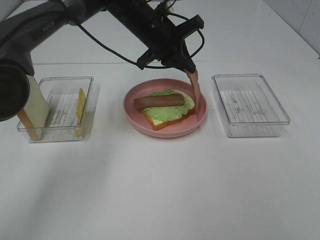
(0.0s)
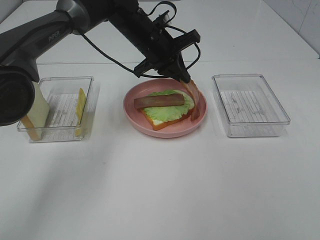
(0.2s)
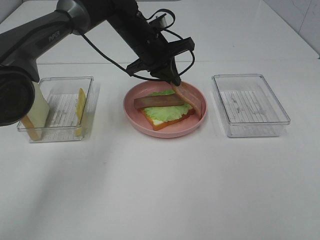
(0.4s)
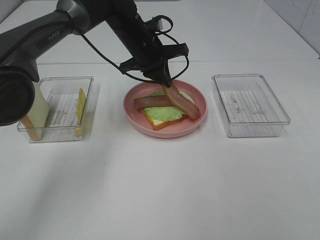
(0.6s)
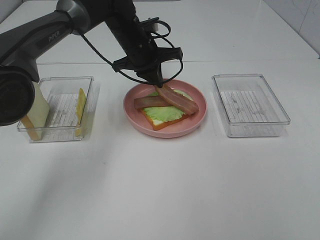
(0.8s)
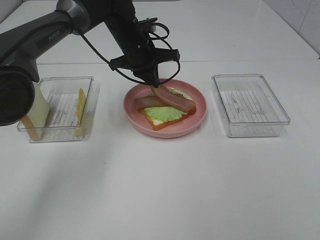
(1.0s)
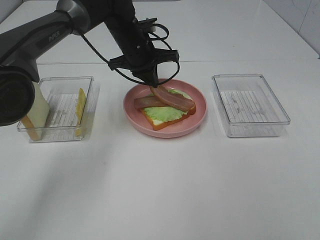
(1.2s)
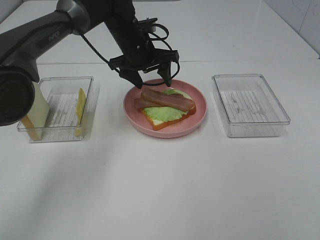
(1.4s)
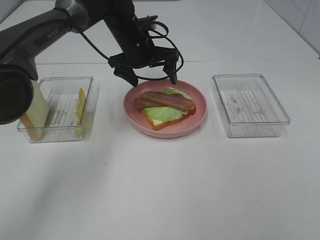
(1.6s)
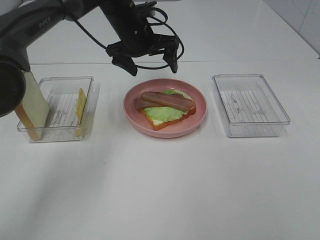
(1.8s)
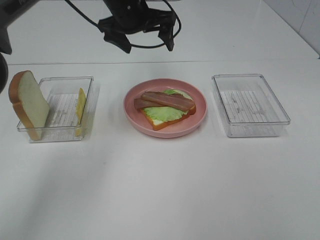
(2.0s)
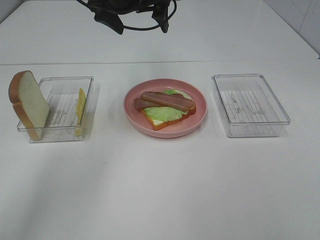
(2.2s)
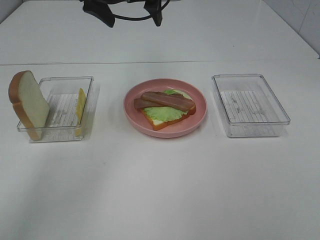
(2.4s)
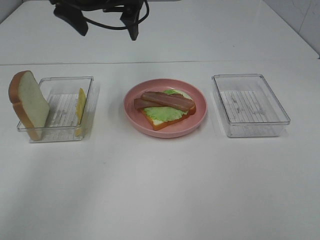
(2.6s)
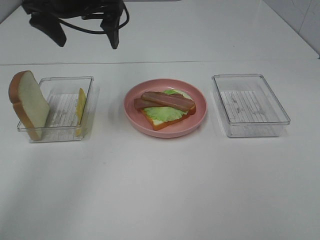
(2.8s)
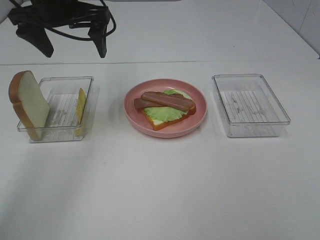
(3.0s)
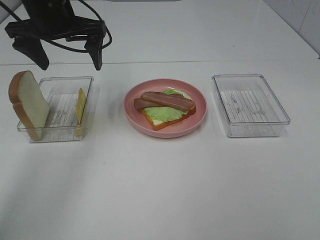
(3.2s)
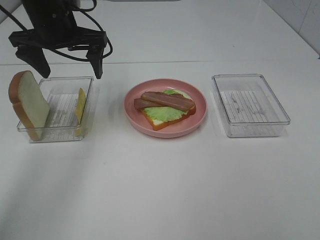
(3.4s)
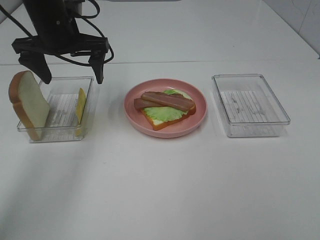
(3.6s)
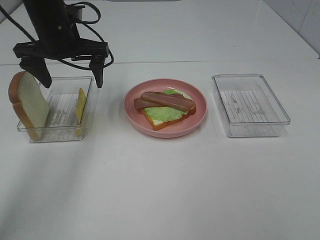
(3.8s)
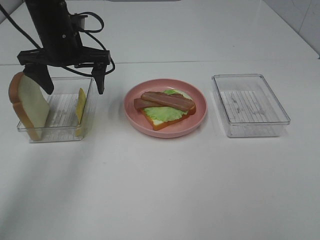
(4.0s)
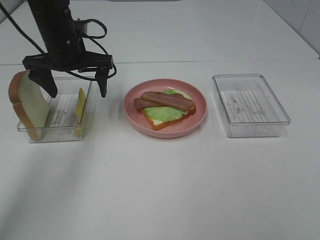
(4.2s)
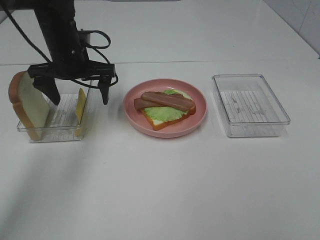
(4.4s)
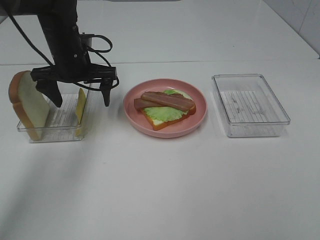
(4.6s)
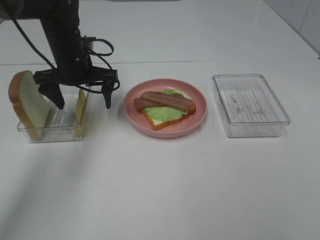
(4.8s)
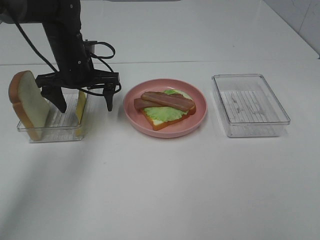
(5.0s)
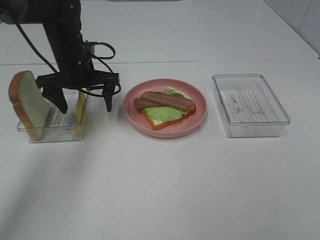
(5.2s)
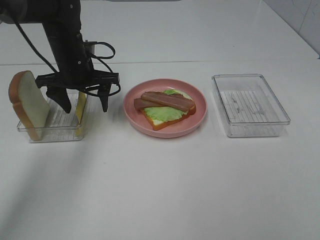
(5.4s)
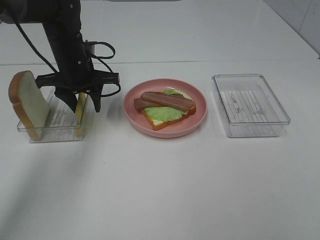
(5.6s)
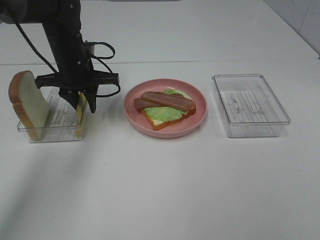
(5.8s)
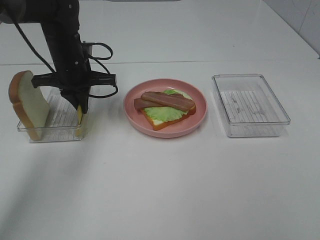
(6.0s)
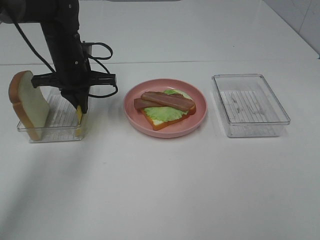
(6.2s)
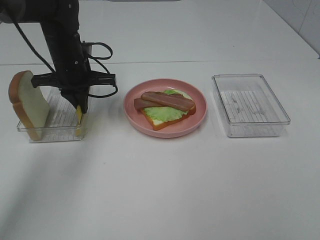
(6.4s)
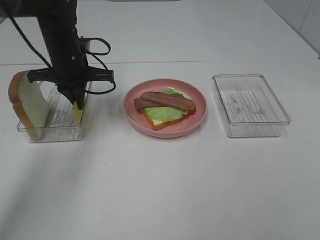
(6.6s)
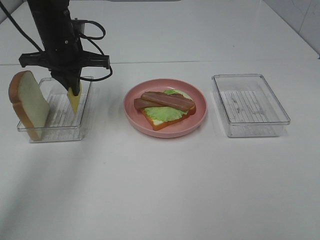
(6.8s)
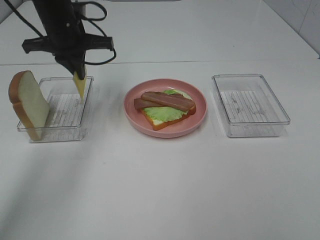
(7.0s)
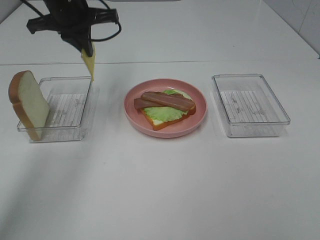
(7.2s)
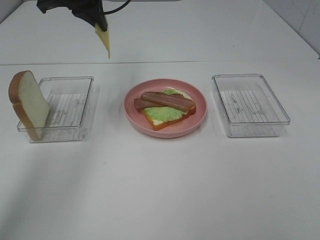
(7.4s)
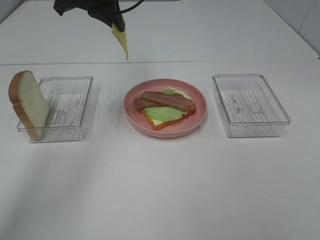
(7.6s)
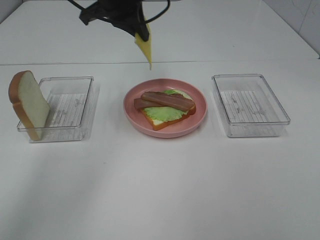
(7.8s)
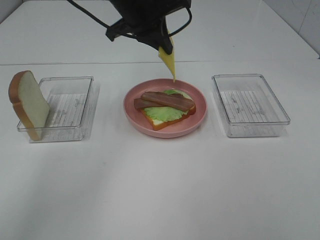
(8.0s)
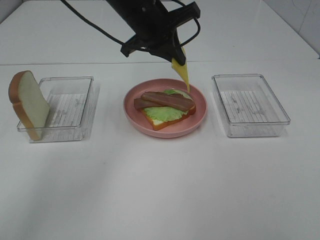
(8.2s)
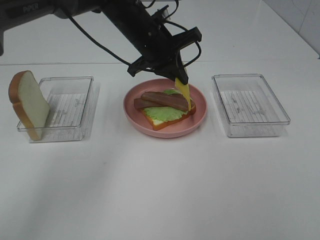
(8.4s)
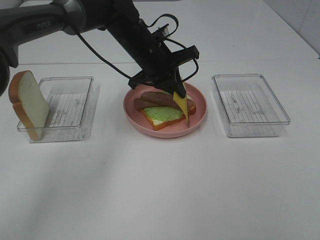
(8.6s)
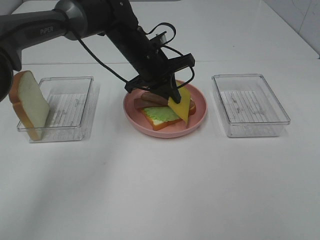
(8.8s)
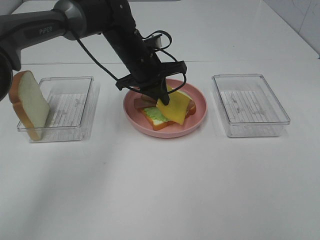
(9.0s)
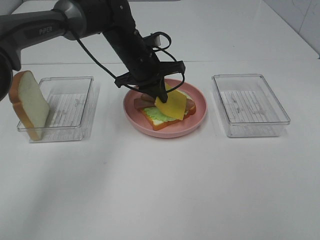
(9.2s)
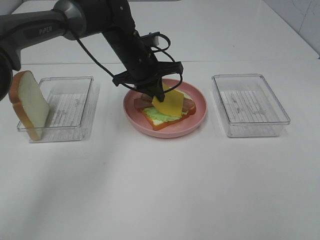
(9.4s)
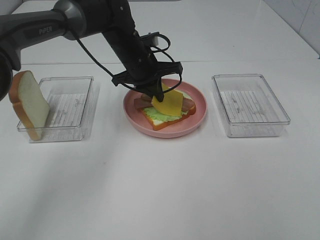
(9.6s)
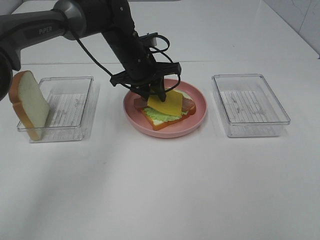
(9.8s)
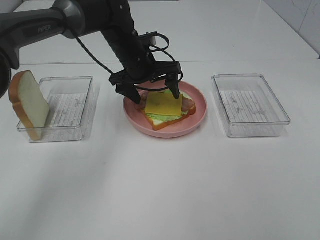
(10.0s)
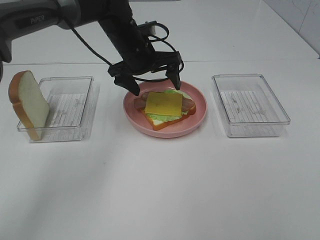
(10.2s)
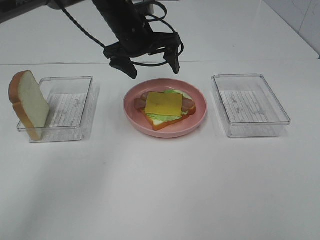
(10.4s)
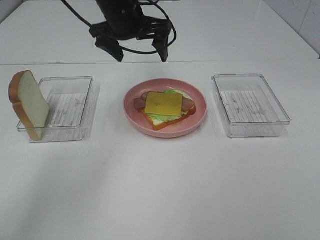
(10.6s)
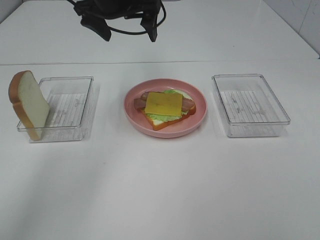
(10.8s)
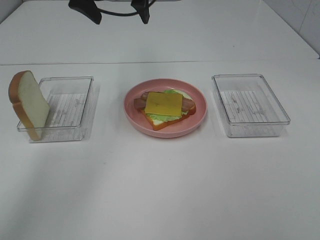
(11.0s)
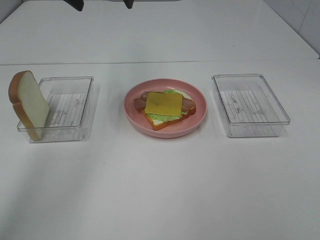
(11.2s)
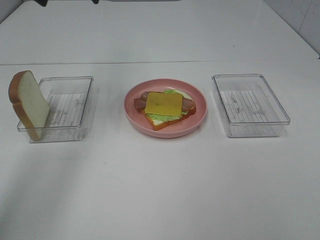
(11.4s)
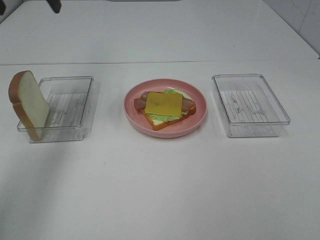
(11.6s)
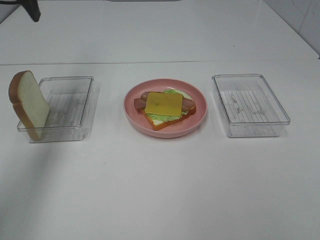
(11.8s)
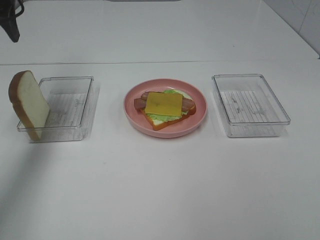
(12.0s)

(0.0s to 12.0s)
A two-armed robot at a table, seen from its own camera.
Task of the whole recording: Make sandwiches.
Step, 2.0s - 6.6s: Left hand:grab the cheese slice.
Step, 6.8s - 10.2s: Left hand:place the cheese slice on top of the bacon.
0.0s - 1.6s: The left gripper opens.
1.6s - 3.0s: The left gripper travels upward, to the left and backward by about 20 cm.
3.0s - 4.4s: The left gripper goes some 10 cm downward.
4.4s - 6.0s: The left gripper closes.
6.0s - 7.6s: The left gripper is displaced upward by roughly 15 cm.
7.6s - 9.0s: The left gripper is displaced downward and to the right by approximately 20 cm.
9.0s - 10.4s: The left gripper travels upward by roughly 5 cm, and opens.
10.4s - 12.0s: The left gripper shifts approximately 25 cm to the left.

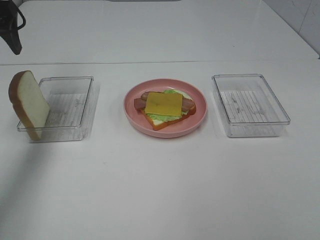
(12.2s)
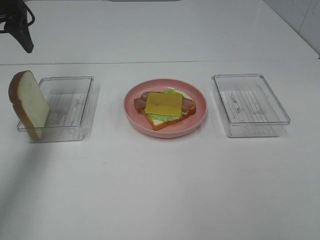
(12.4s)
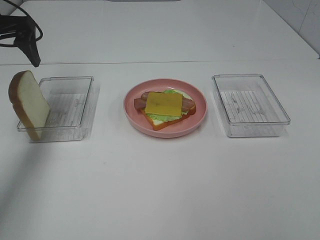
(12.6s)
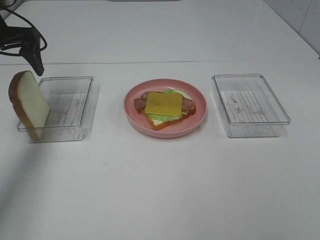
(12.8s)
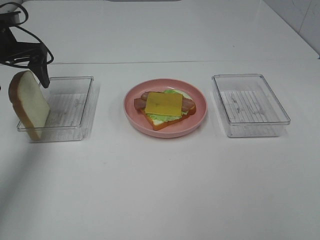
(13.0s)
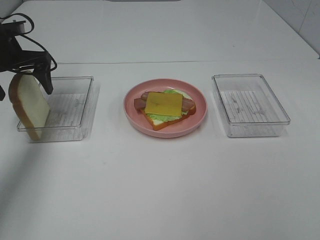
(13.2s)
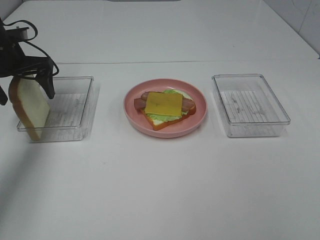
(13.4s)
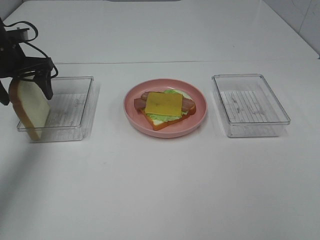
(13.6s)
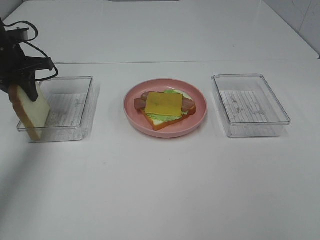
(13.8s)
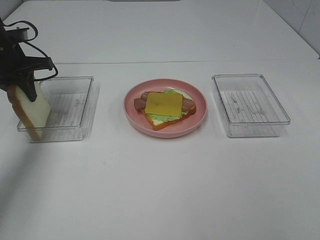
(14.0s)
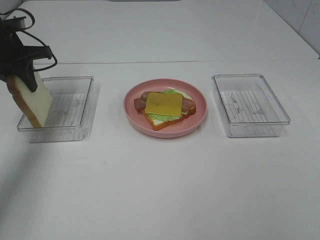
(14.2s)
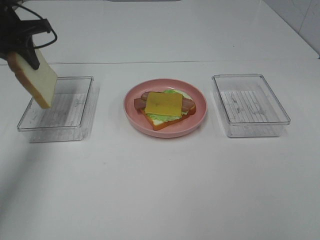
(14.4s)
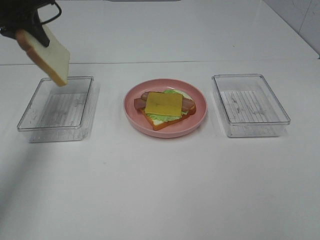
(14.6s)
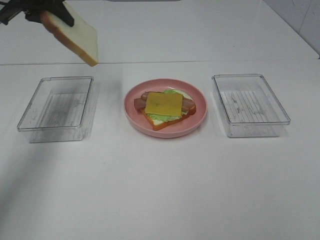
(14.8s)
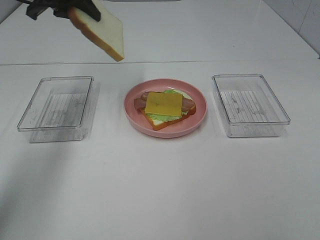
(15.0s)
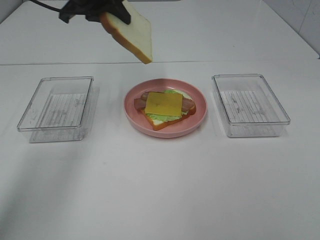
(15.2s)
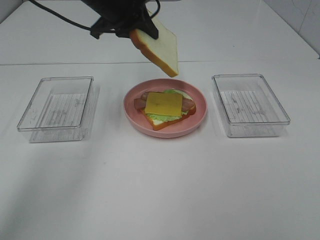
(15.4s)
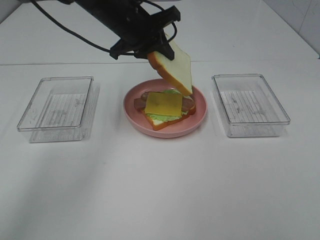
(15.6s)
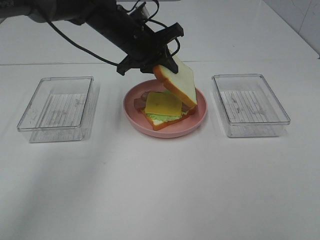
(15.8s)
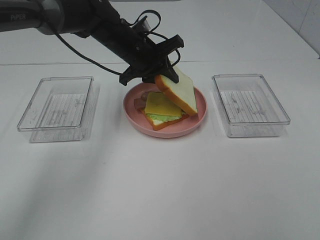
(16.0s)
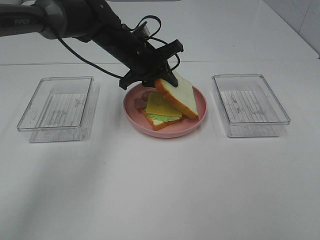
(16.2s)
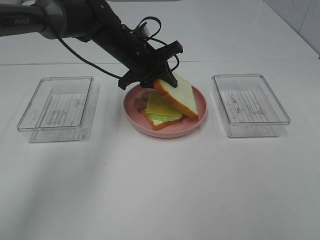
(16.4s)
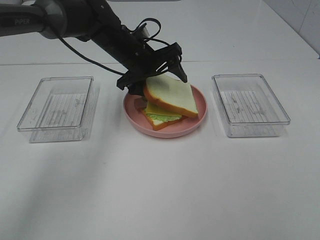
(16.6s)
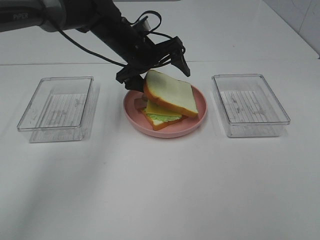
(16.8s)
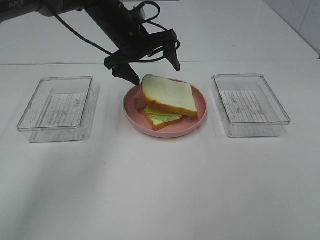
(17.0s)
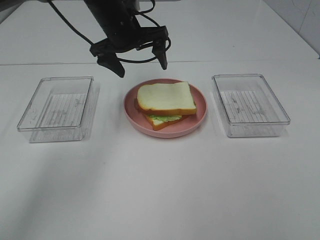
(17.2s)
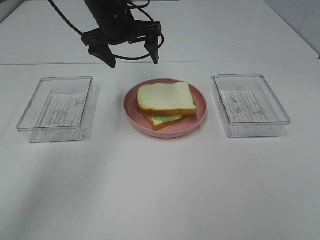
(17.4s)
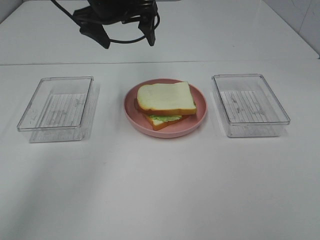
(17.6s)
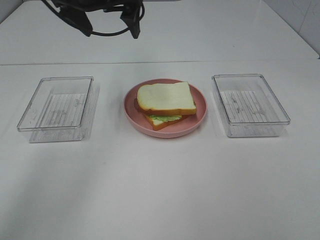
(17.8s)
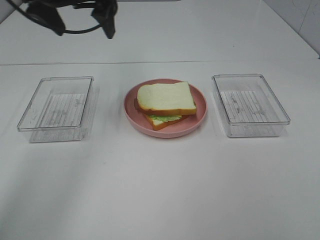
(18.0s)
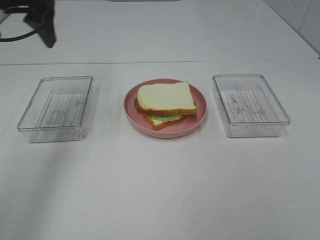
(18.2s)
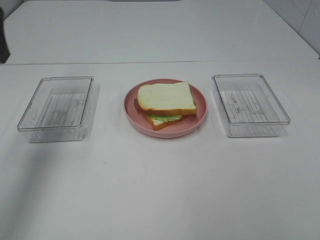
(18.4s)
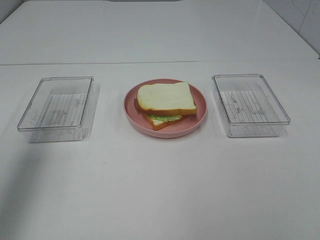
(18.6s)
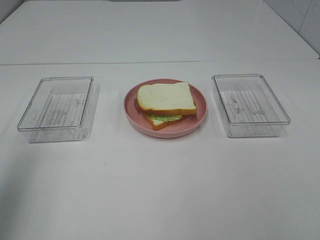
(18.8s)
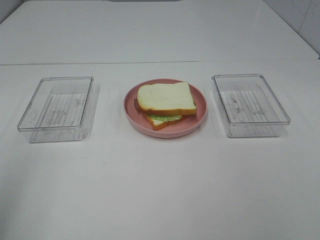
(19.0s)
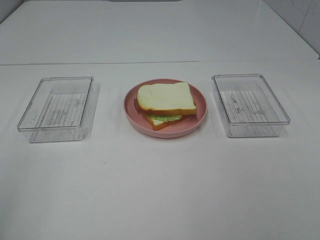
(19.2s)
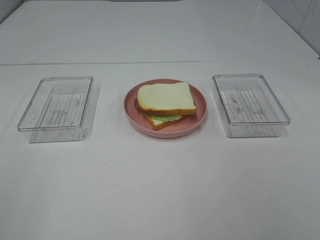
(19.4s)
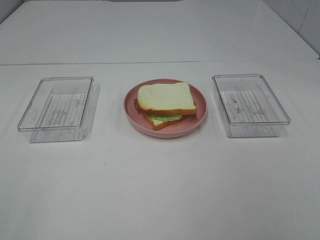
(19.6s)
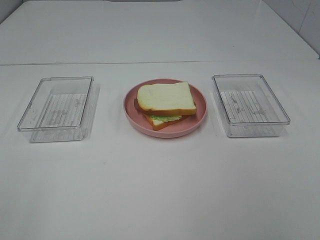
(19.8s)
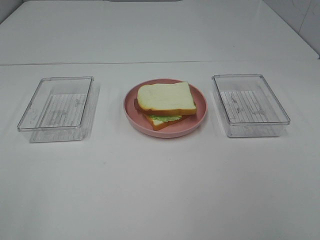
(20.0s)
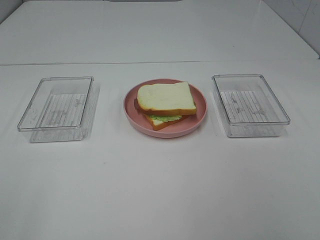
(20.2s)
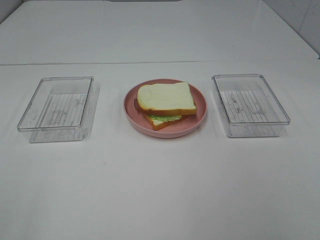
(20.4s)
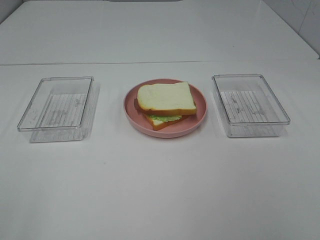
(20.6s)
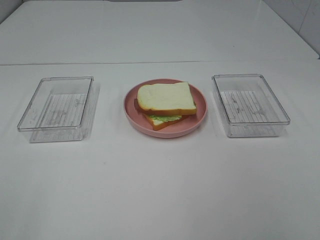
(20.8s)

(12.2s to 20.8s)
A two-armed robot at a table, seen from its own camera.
Task of the whole recording: Make sandwiches.
Step, 12.2s - 14.2s: Left hand:grab the bread slice.
Step, 14.4s - 17.0s: Left hand:place the bread slice on the cheese slice.
12.2s - 13.6s: The left gripper heads downward, covering approximately 10 cm.
13.6s - 15.0s: The left gripper goes approximately 15 cm upward and to the right, and closes up.
15.0s - 16.6s: The left gripper moves downward and to the right, approximately 20 cm, and opens.
16.6s - 18.0s: The left gripper travels upward and to the left by about 20 cm.
18.0s - 19.4s: The left gripper travels backward by about 40 cm.

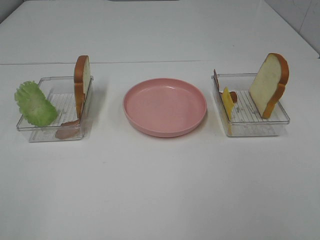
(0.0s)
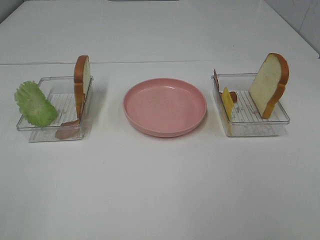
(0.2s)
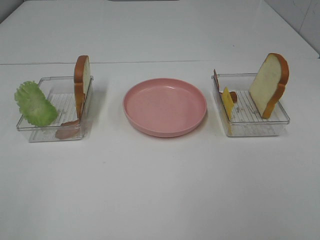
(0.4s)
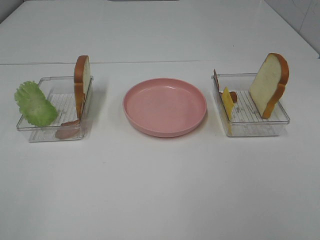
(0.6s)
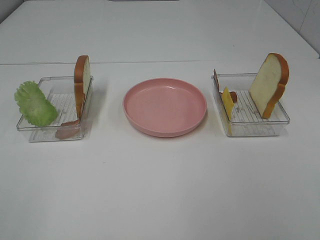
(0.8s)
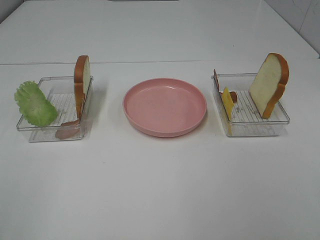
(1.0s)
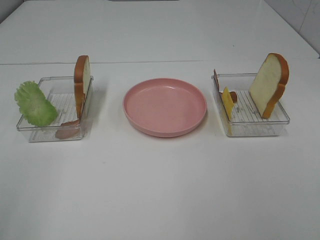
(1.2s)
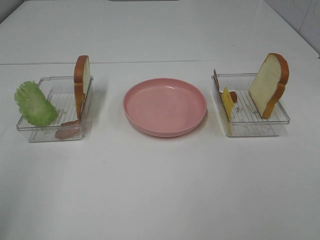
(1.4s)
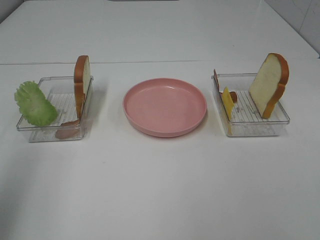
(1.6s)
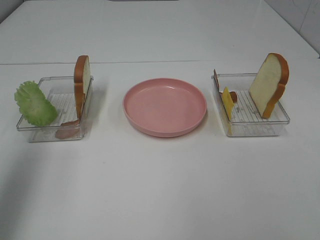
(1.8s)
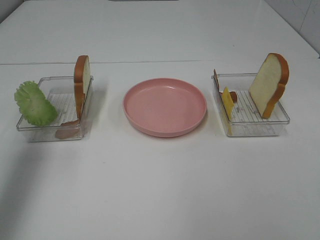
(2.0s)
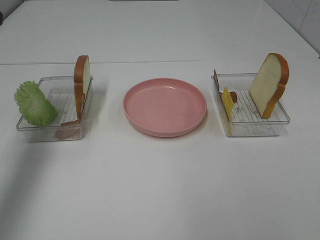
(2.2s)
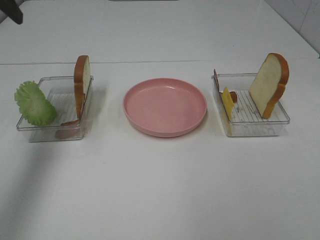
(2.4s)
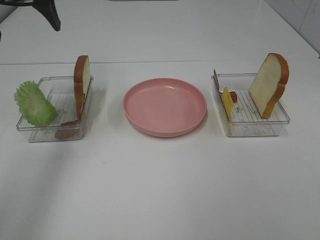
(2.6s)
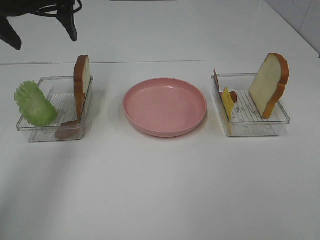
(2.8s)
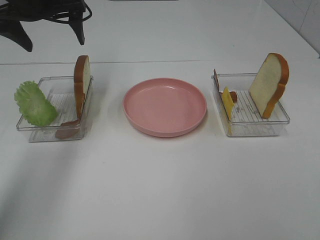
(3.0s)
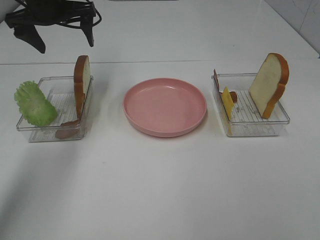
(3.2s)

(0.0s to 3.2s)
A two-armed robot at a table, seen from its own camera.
Task of the whole recording: Make sandwiches.
0.0s - 1.6s: The left gripper moves forward and upward, roughly 15 cm.
1.6s - 3.2s: The left gripper shifts roughly 35 cm forward.
